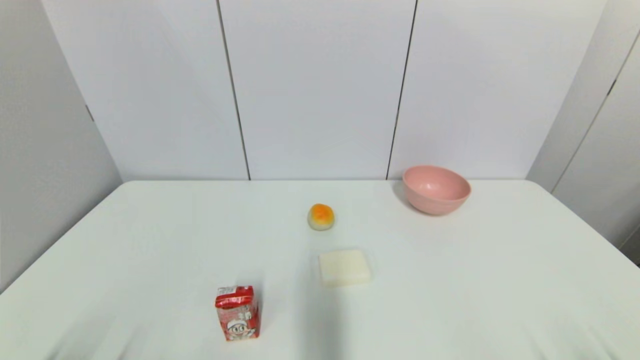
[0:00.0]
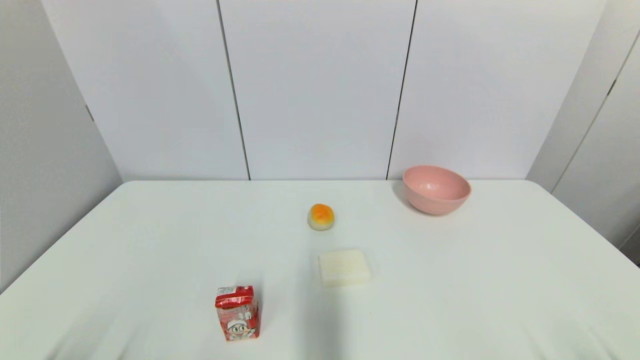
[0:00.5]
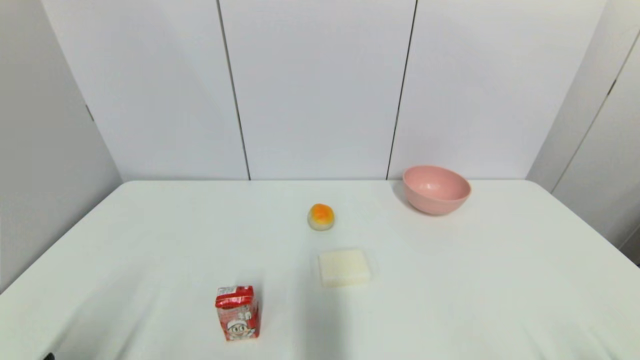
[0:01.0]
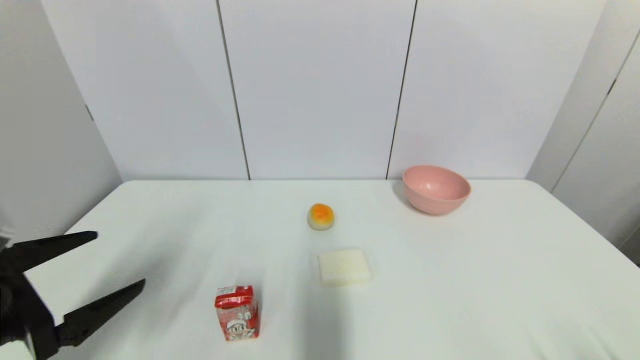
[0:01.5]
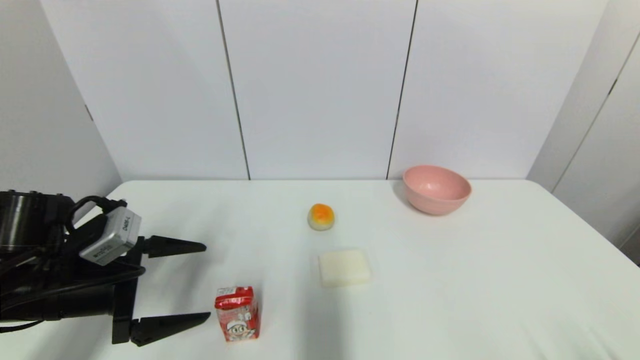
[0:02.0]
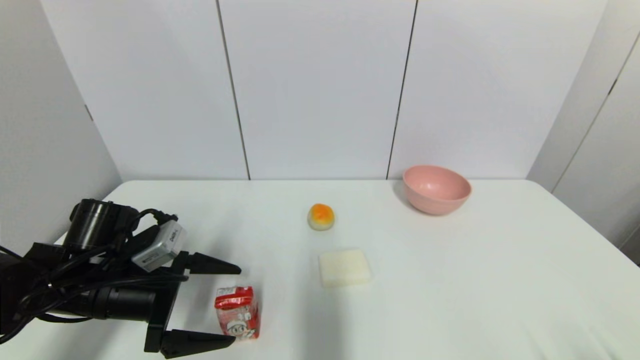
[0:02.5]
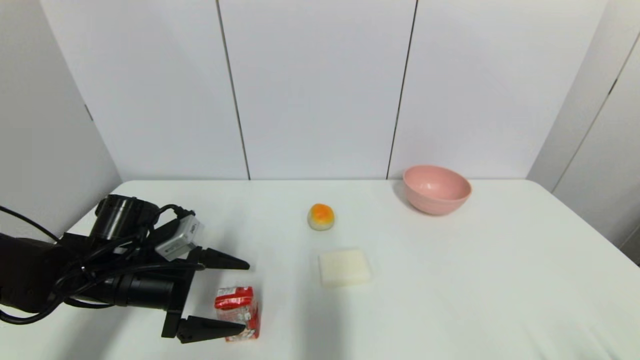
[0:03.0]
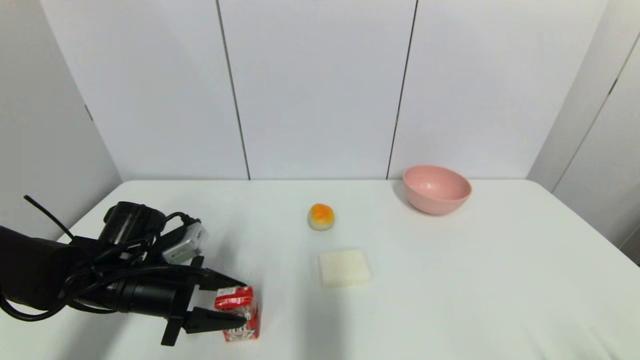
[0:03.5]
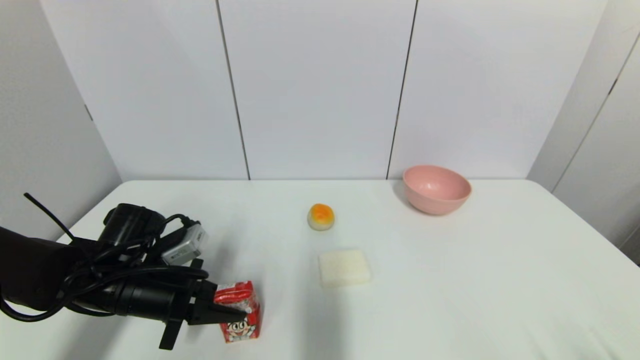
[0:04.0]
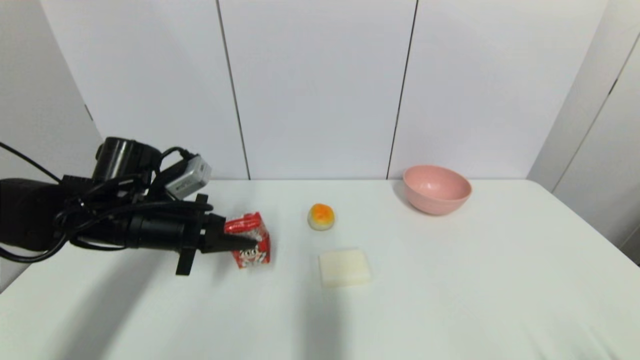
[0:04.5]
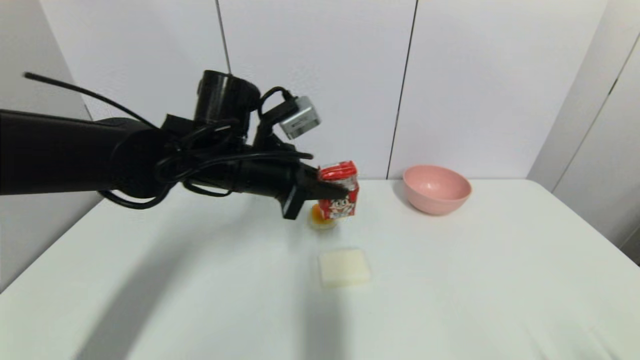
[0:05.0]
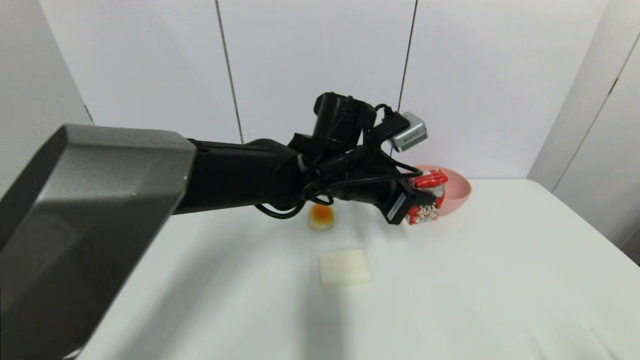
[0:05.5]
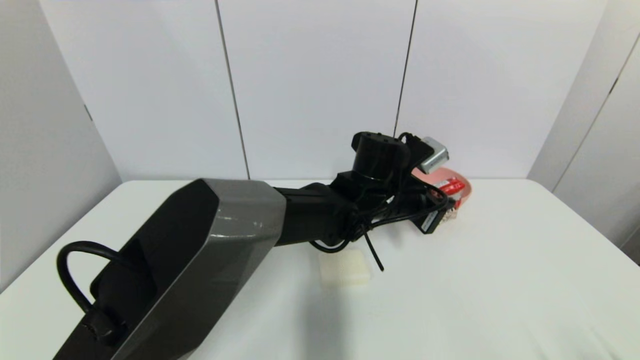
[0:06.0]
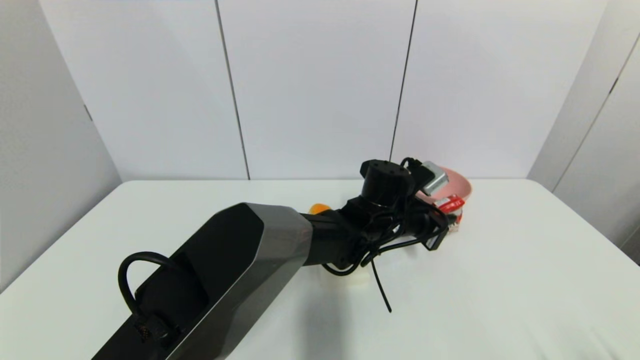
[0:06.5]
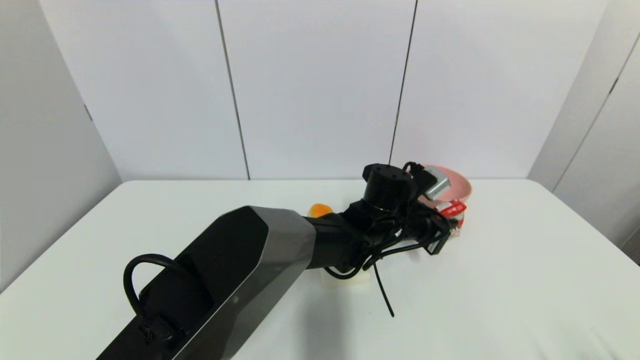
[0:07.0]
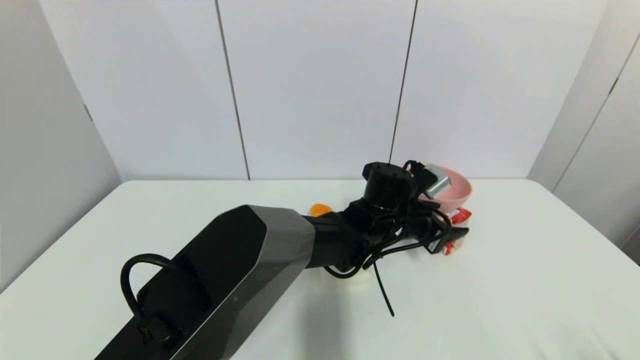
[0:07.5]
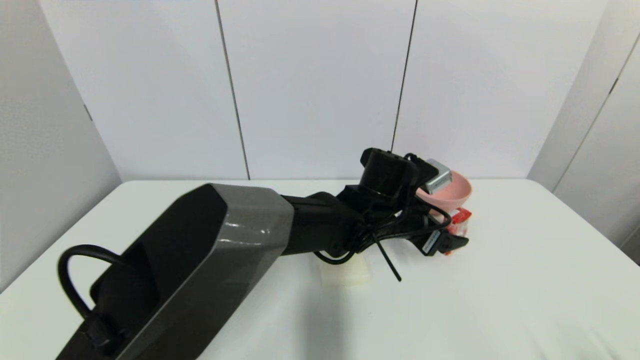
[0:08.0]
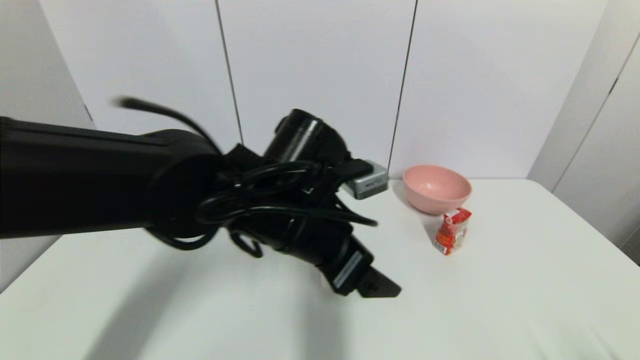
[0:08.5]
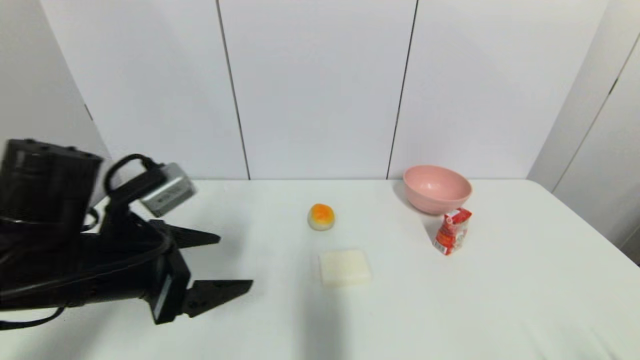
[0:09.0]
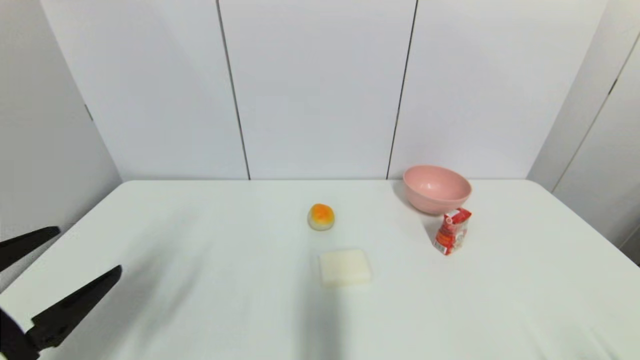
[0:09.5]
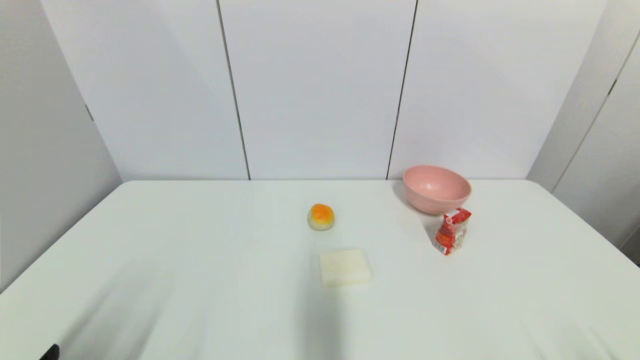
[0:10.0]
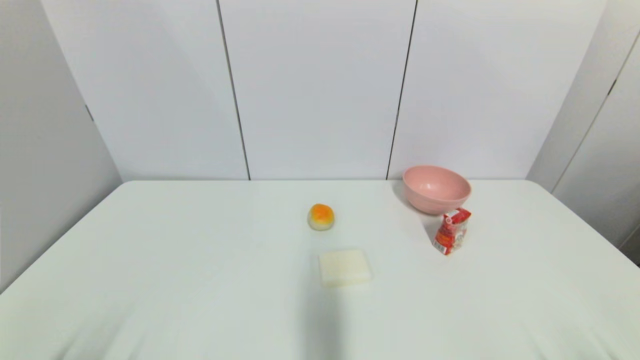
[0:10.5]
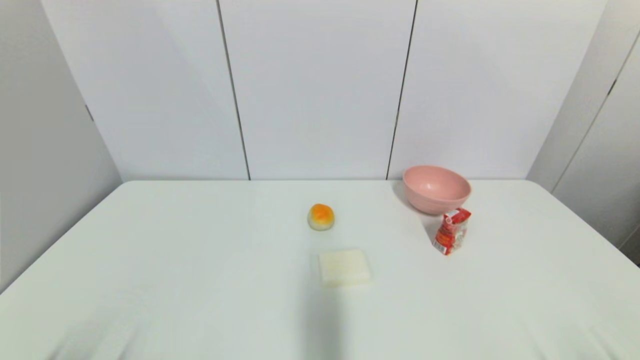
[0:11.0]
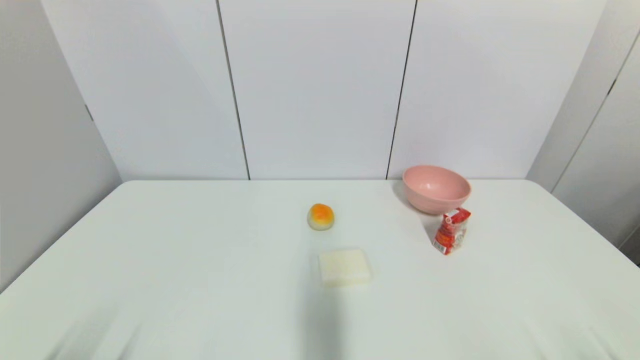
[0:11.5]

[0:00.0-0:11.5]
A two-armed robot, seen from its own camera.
Step, 0:01.0 to 0:04.0: Grasp the wangzai milk with left gripper.
Step, 0:04.5 to 0:07.0: Place the wangzai milk on the table with left gripper.
0:00.0 to 0:02.0: The left gripper shifts some 20 cm forward.
0:02.0 to 0:04.0: The left gripper is displaced downward by roughly 5 cm, and closes up.
0:04.0 to 0:06.0: The left gripper goes approximately 35 cm to the right.
0:06.0 to 0:07.5: The left gripper goes some 5 cm downward, and opens up.
0:07.5 to 0:09.5: The left gripper shifts approximately 50 cm to the left and backward, and opens up.
0:09.5 to 0:11.5: The left gripper travels downward and backward by roughly 15 cm.

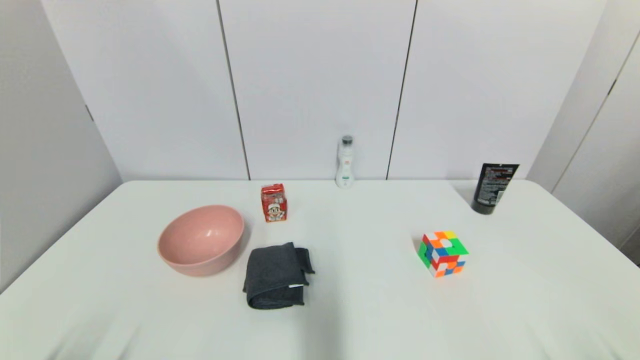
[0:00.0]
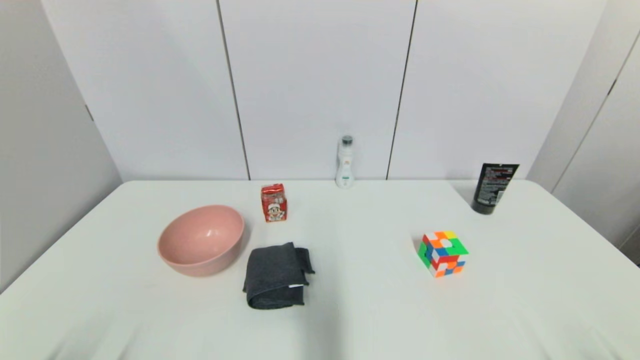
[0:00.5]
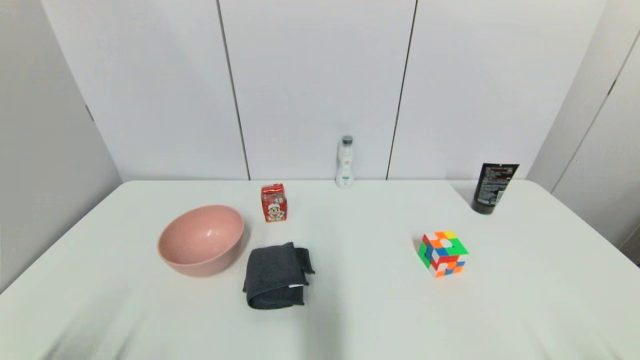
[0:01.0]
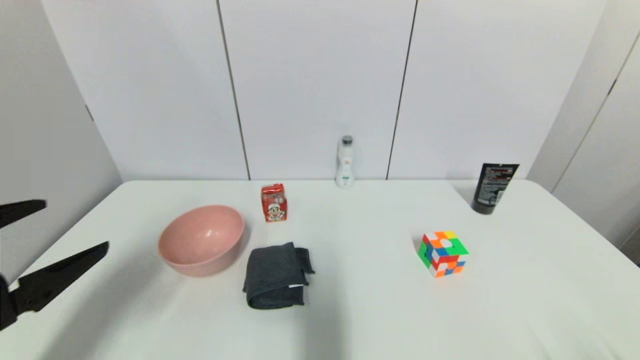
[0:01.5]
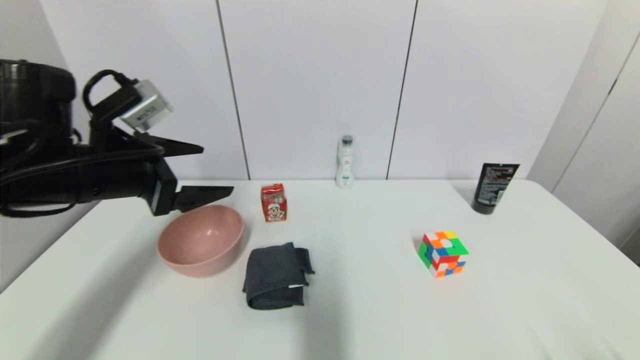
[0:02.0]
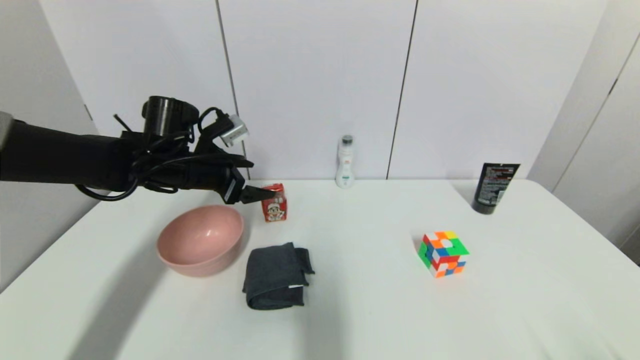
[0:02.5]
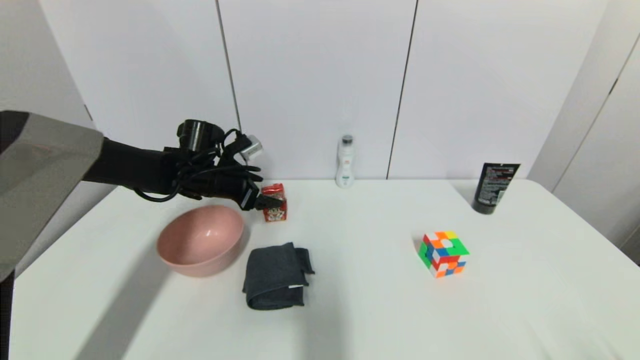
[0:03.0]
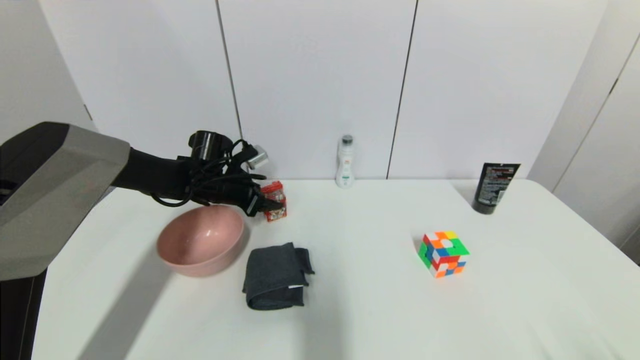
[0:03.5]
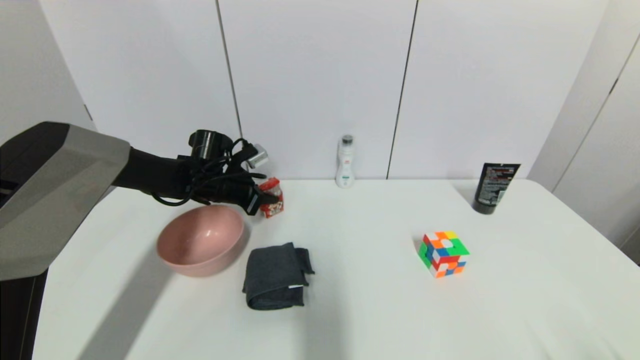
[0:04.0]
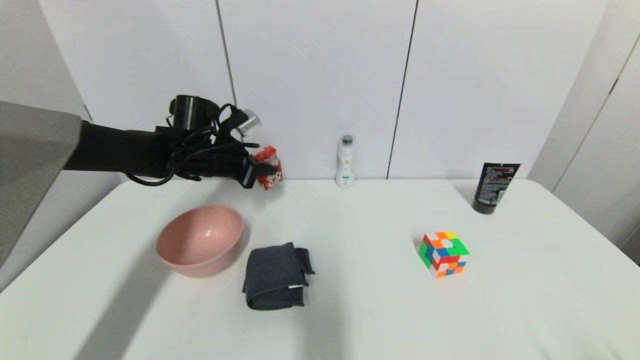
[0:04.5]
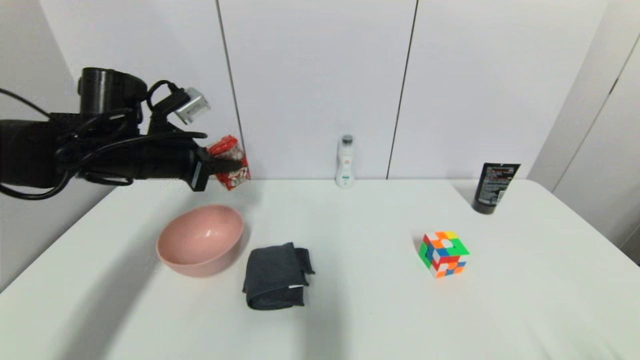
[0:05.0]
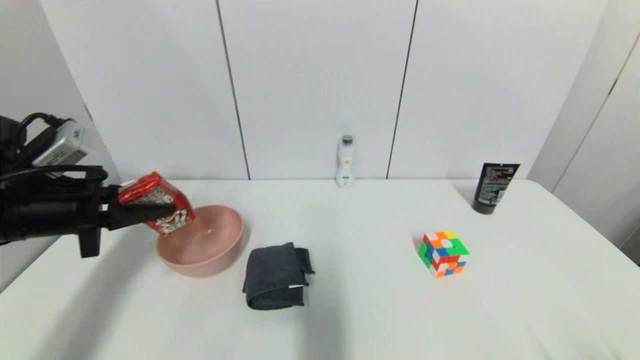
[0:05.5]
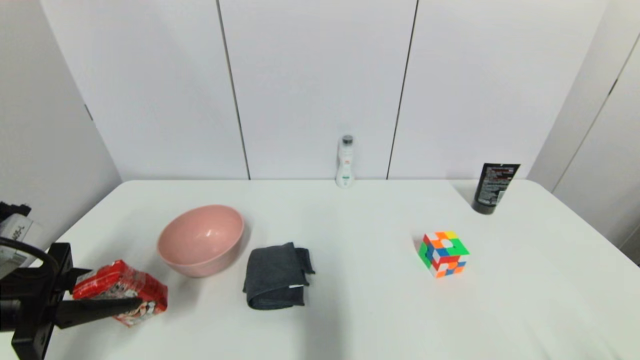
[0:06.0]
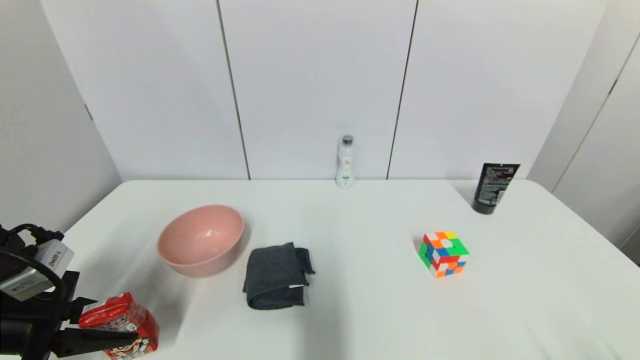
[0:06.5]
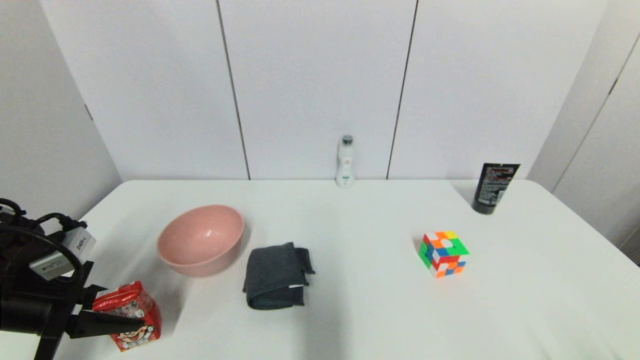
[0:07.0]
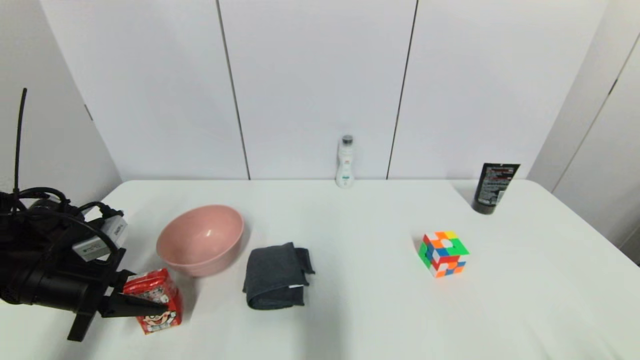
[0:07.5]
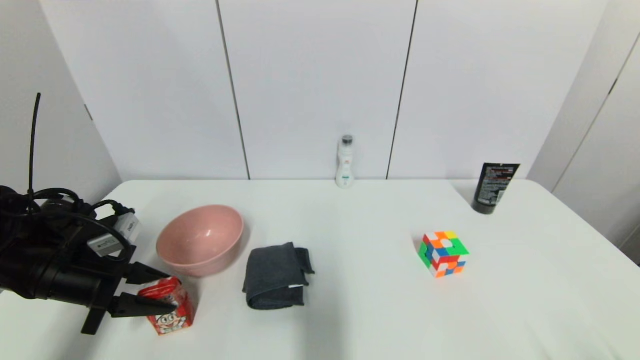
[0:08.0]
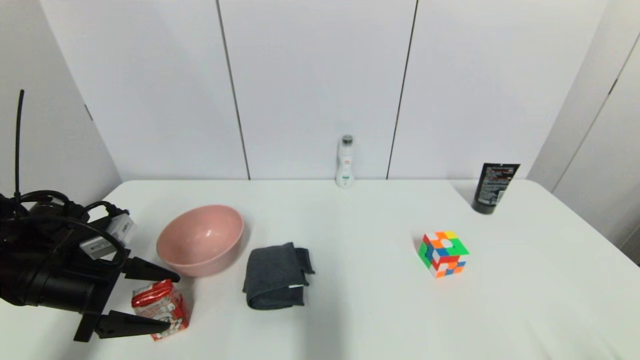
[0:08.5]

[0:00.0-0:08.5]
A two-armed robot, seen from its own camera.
Step, 0:01.5 to 0:03.5: Grasp the wangzai milk with left gripper.
Step, 0:04.0 to 0:08.0: Place the wangzai milk on the table with left gripper.
0:00.0 to 0:02.0: The left gripper goes some 30 cm forward and upward.
0:02.0 to 0:04.0: The left gripper travels forward and downward by about 25 cm, and closes its fingers.
0:04.0 to 0:06.5: The left gripper travels backward and to the left by roughly 30 cm.
0:06.5 to 0:08.5: The left gripper goes about 5 cm forward, and opens up.
